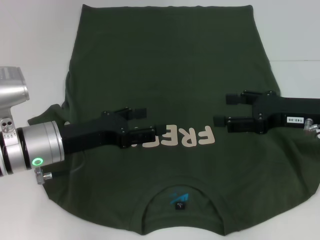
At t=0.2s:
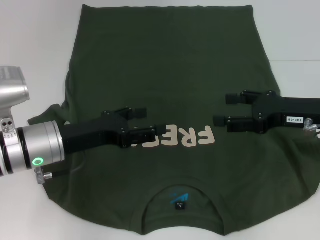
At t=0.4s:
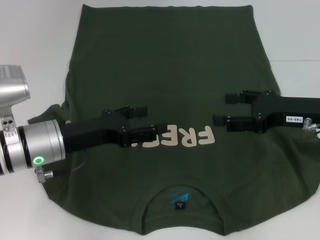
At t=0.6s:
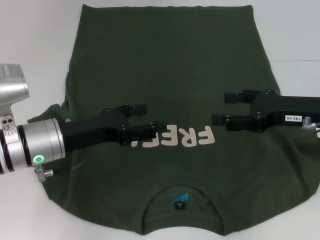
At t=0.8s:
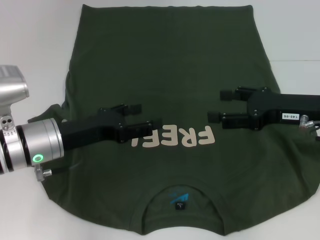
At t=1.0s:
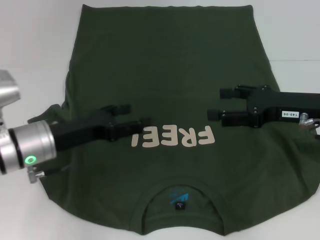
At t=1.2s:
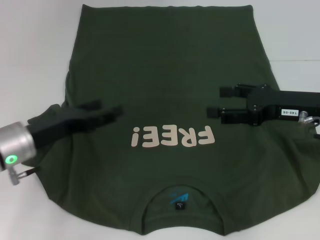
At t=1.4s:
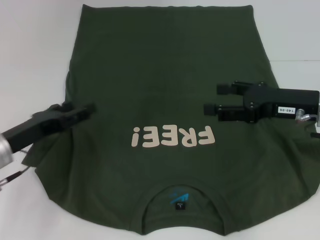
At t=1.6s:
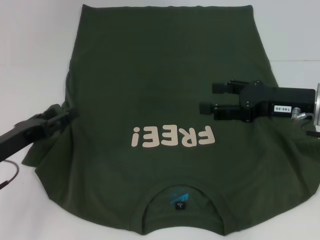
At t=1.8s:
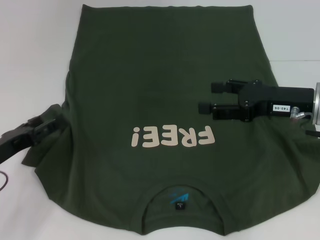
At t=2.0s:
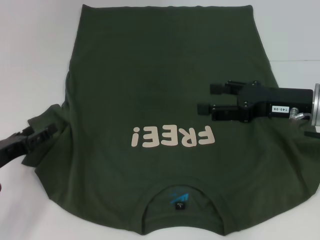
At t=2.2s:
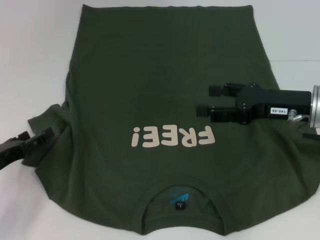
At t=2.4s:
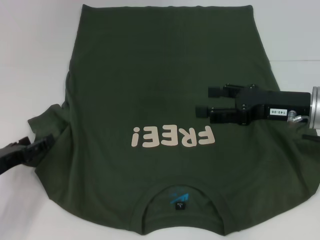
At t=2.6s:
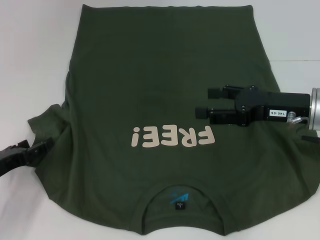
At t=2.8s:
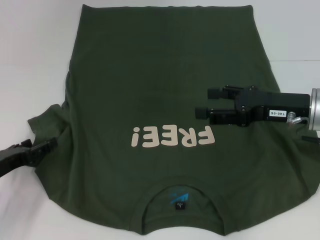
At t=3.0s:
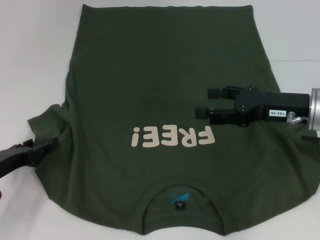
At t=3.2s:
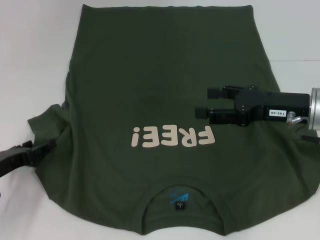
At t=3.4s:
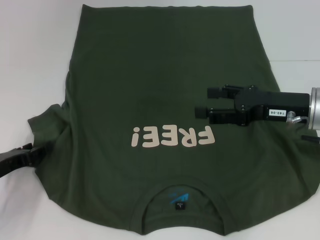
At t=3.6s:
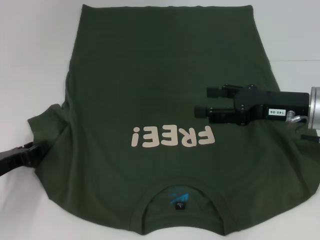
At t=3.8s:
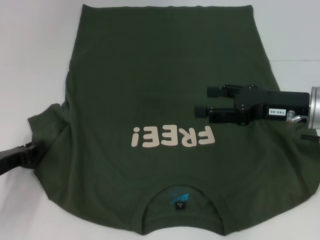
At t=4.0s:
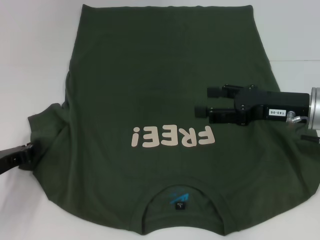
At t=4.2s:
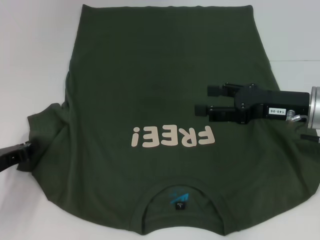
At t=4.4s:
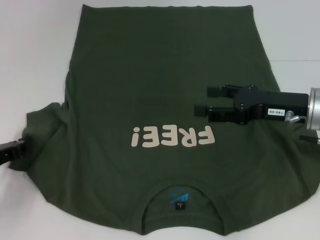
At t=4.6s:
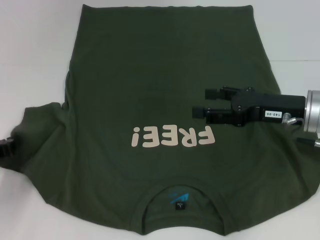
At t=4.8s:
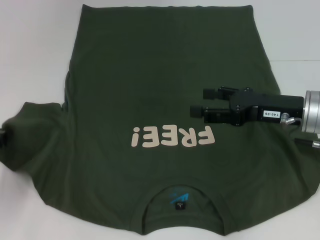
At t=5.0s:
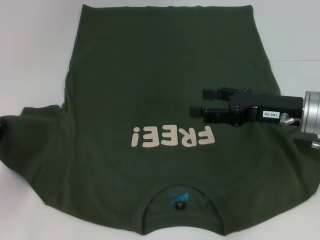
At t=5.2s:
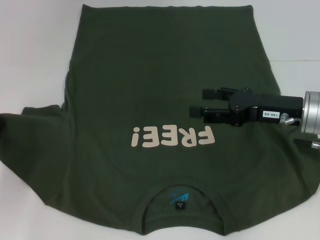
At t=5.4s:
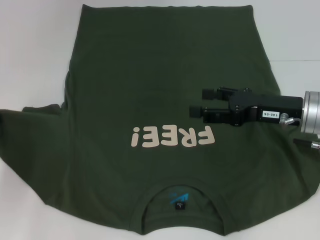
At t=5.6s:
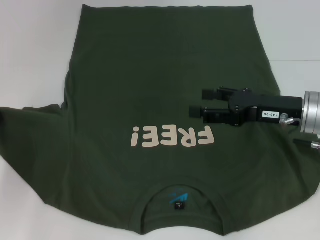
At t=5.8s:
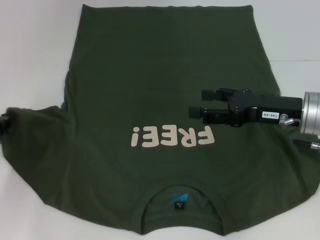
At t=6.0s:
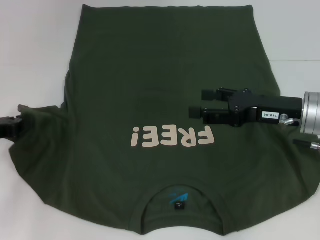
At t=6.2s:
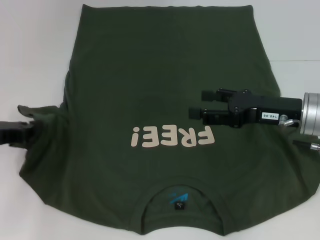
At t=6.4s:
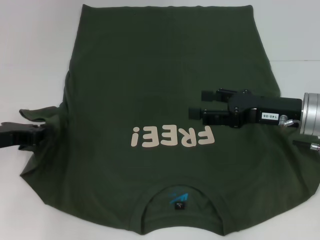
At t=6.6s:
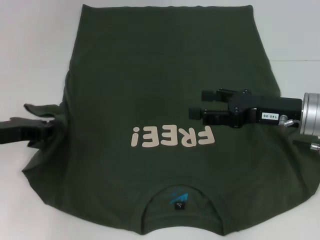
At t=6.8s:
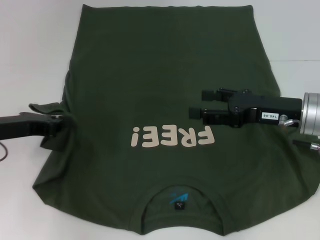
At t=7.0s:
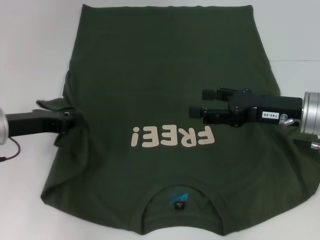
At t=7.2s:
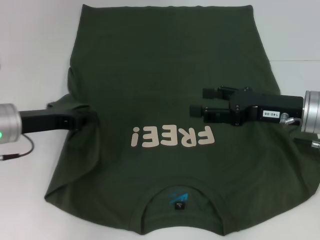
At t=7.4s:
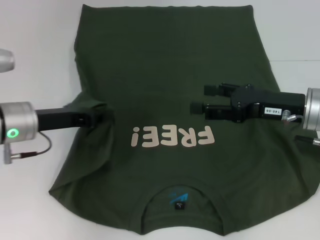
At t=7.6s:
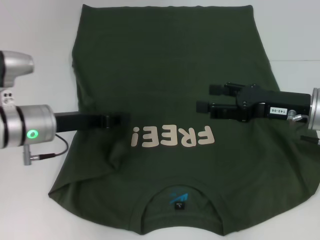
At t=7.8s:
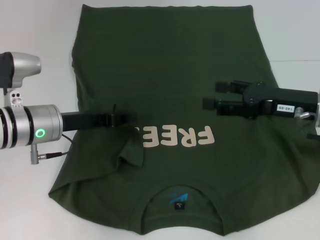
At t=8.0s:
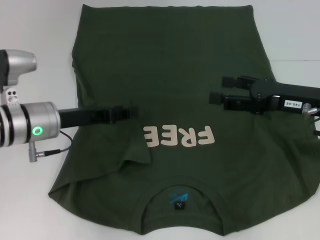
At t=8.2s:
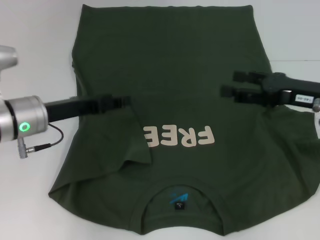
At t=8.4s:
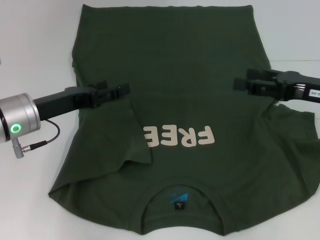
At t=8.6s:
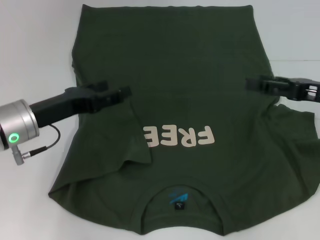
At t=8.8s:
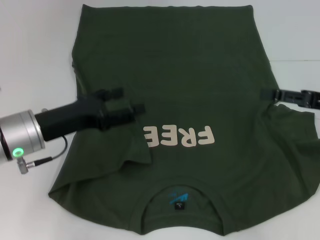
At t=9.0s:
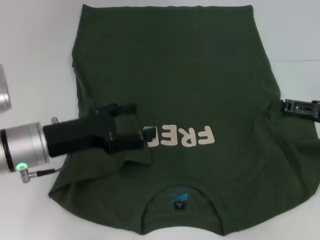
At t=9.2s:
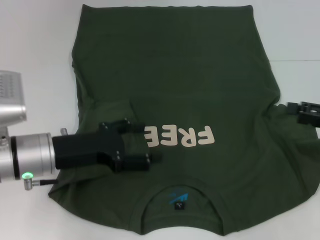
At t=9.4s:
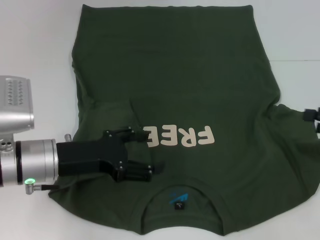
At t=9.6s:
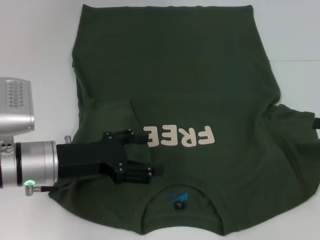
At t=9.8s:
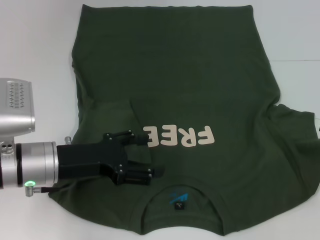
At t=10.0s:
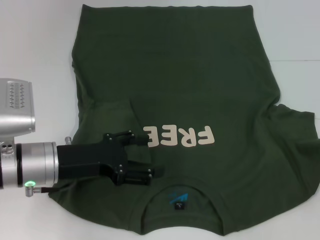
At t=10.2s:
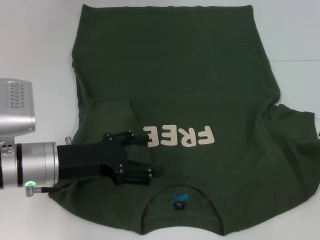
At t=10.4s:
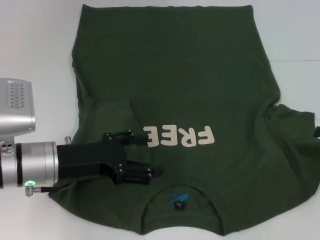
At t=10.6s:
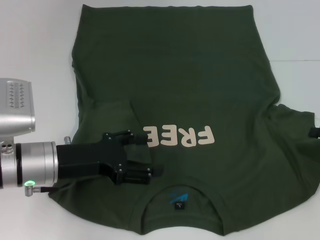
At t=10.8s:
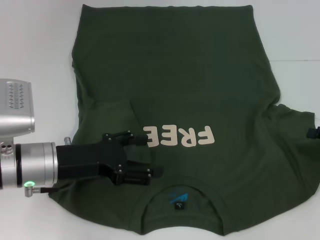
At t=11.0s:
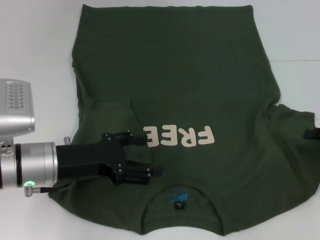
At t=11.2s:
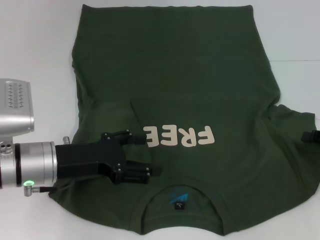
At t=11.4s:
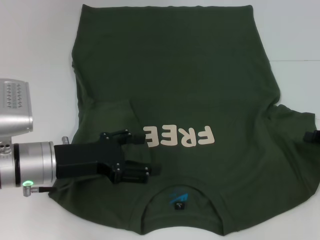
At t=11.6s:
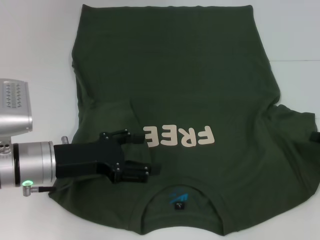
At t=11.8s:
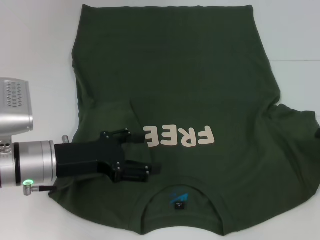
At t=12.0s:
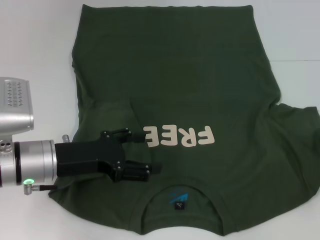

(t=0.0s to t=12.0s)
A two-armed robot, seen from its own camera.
Step, t=0.0s - t=8.2s: Fold the bottom left sleeve with your left hand.
t=0.0s - t=1.6s: The left gripper travels to the left by about 10 cm.
t=1.6s - t=3.0s: The grippers make only small movements.
t=3.0s - t=4.4s: The left gripper closes.
t=4.4s - t=6.0s: The left gripper goes about 5 cm upward.
t=6.0s - t=7.6s: The left gripper heads to the right, covering roughly 10 cm.
t=7.6s - t=9.0s: The right gripper shifts some 10 cm to the right; the left gripper opens up.
t=9.0s - t=10.4s: The right gripper heads to the right, covering roughly 5 cm.
t=10.4s - t=12.0s: The right gripper closes up.

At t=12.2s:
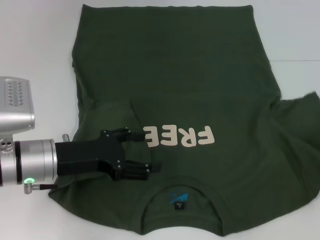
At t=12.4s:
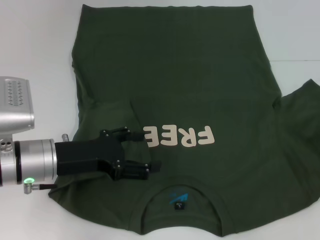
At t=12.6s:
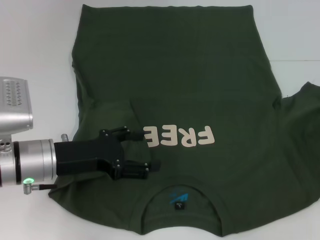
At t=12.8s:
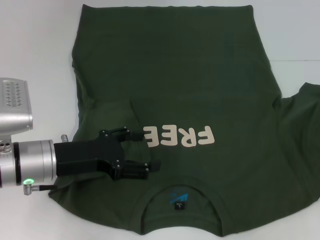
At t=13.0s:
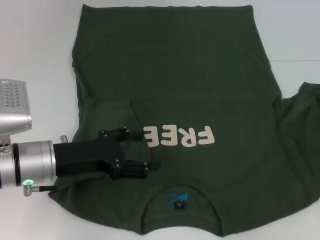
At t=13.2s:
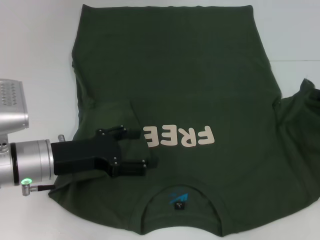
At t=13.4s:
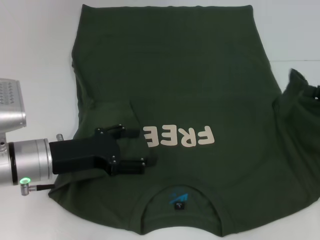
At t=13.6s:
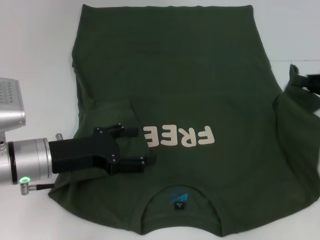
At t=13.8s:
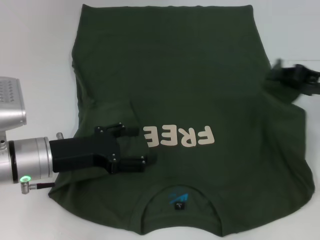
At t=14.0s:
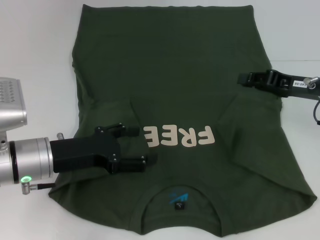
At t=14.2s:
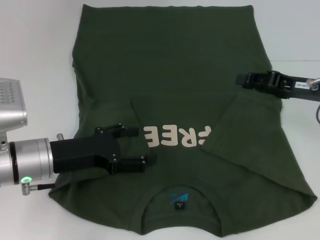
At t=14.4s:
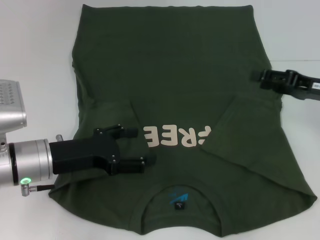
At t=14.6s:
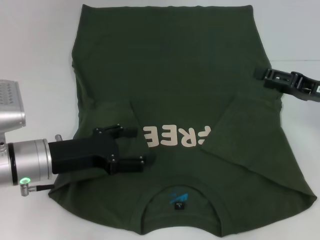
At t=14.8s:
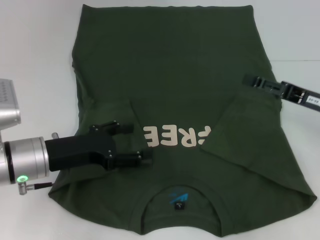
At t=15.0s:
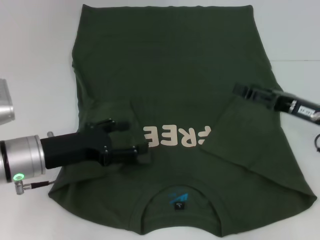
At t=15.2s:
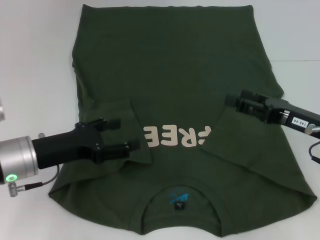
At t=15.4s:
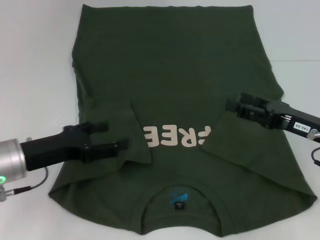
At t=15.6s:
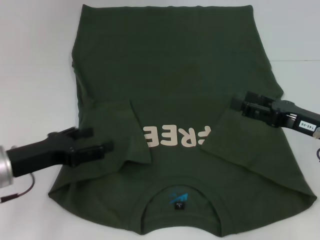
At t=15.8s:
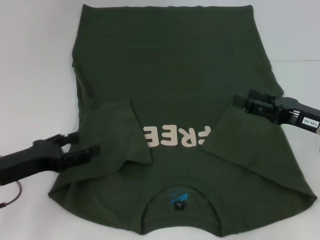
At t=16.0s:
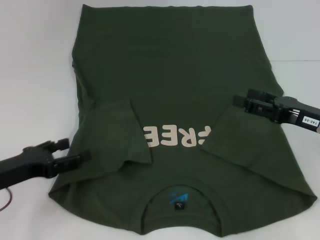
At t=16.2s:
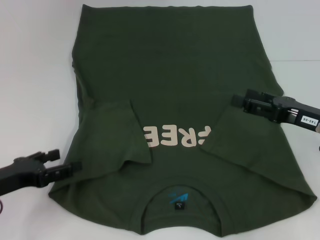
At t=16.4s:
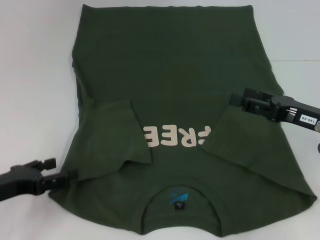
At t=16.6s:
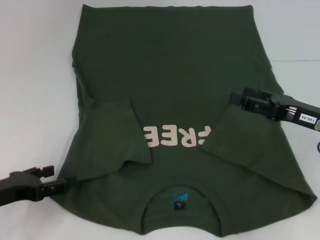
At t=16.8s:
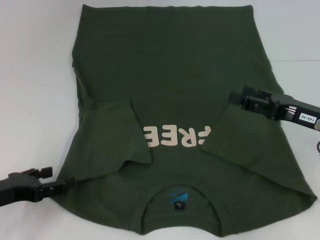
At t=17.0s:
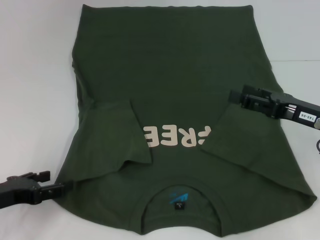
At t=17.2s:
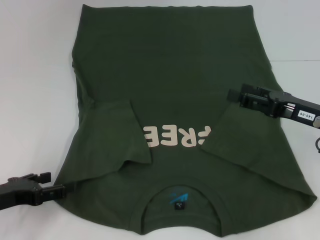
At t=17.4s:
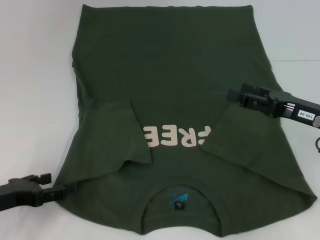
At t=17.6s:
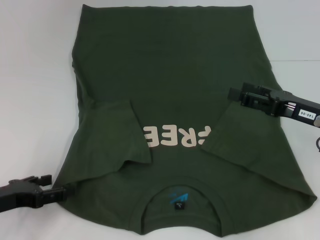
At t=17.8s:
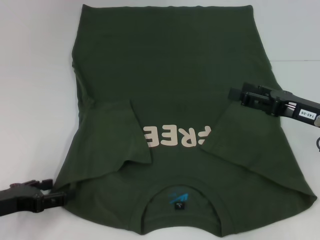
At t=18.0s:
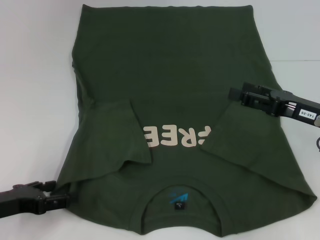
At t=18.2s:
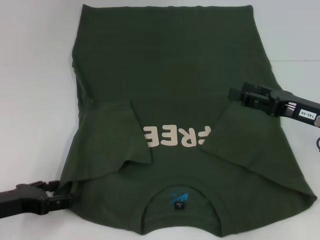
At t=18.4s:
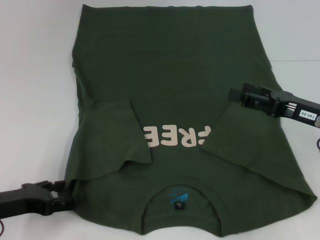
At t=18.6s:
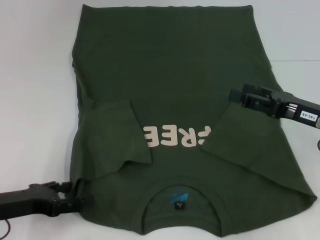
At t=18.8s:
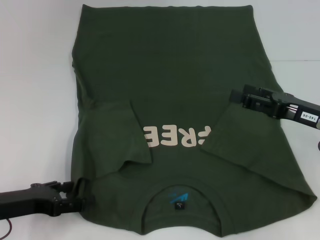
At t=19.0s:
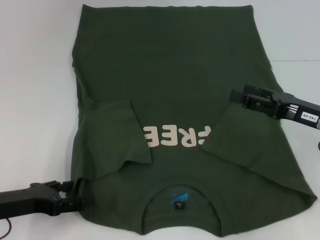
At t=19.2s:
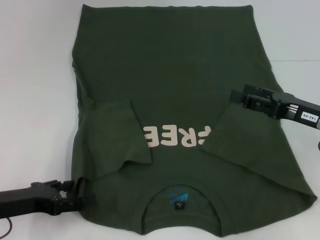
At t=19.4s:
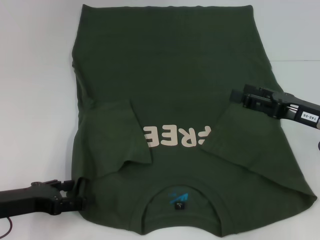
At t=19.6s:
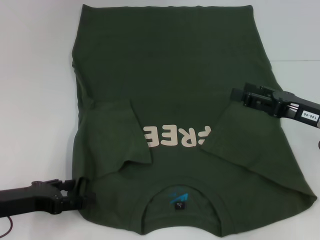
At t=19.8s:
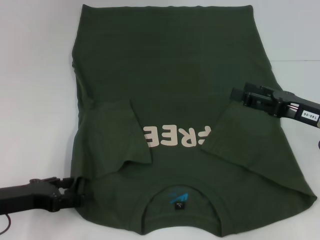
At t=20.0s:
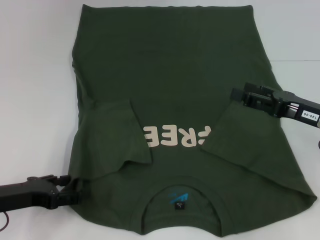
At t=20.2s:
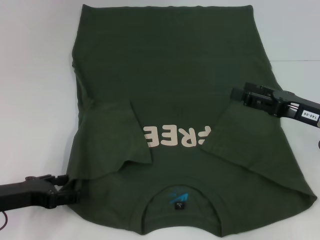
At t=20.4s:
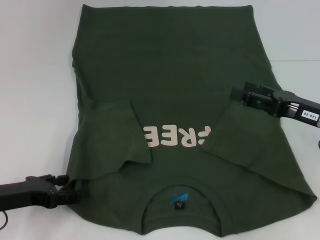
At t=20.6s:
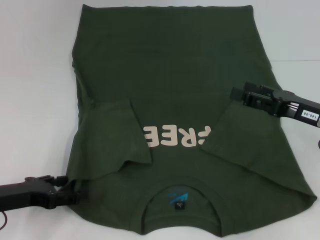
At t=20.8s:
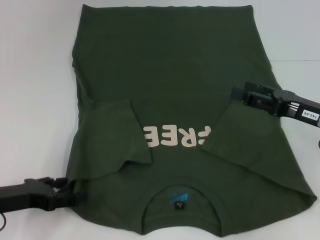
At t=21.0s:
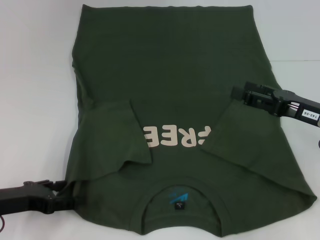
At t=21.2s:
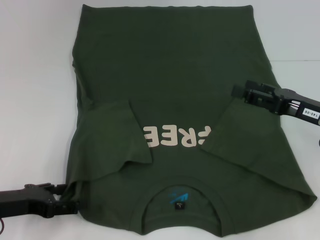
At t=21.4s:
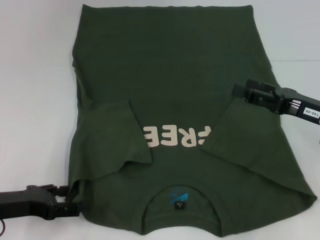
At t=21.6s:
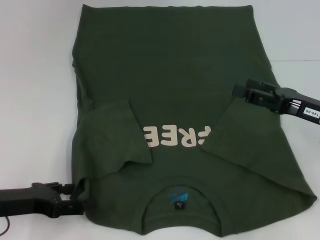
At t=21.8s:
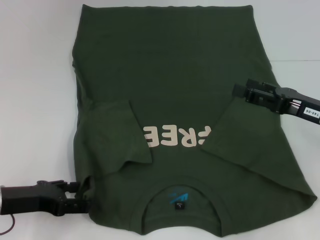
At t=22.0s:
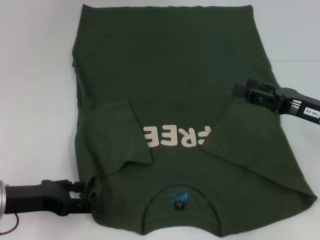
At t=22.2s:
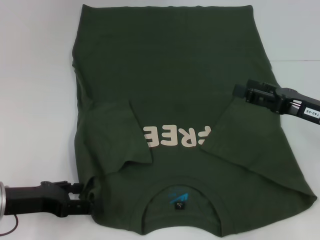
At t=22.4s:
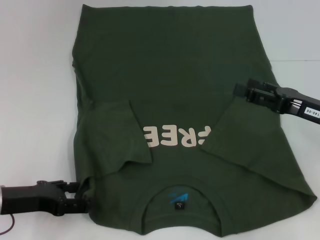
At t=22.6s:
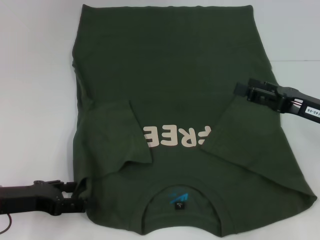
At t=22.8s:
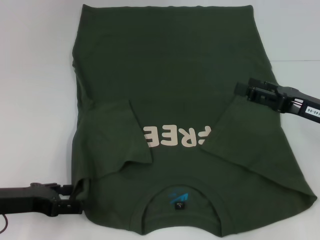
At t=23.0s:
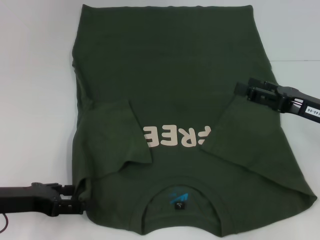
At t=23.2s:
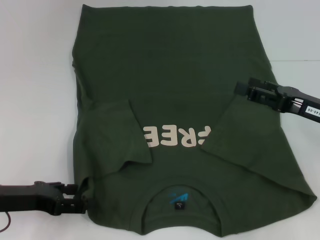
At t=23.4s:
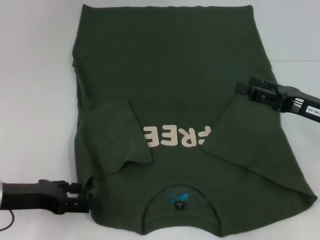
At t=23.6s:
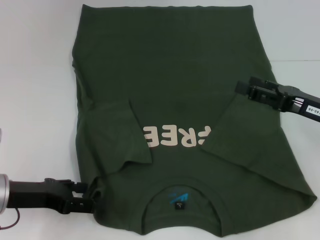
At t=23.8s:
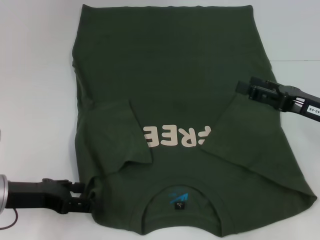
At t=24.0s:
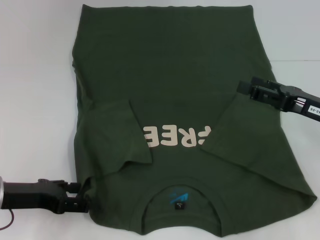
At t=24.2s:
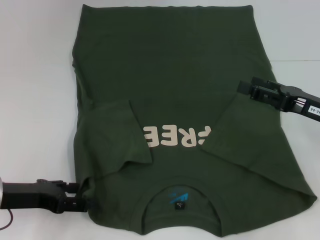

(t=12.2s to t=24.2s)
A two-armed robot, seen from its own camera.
Step, t=12.2s - t=15.8s: Fold the bottom right sleeve with your right hand.
Step, t=16.0s - t=23.0s: Grab the bottom left corner with your left hand.
t=12.2s - t=13.8s: The right gripper shifts roughly 10 cm to the left, forward and upward.
t=13.8s - t=15.2s: The right gripper goes about 5 cm backward, and opens.
t=15.2s - t=16.6s: The left gripper travels to the left and backward by some 10 cm.
t=16.6s - t=19.8s: There are only small adjustments of the grippers.
t=19.8s - t=21.2s: Neither gripper changes place.
t=21.2s - t=24.2s: The grippers make only small movements.
